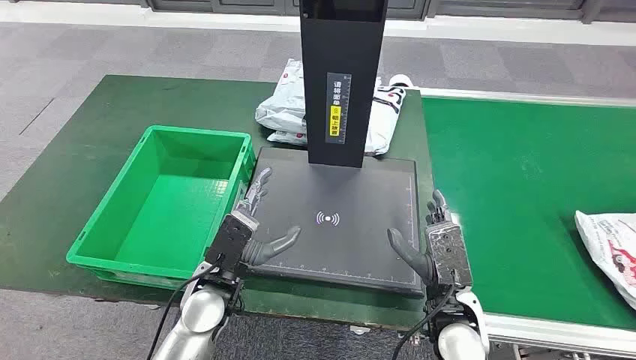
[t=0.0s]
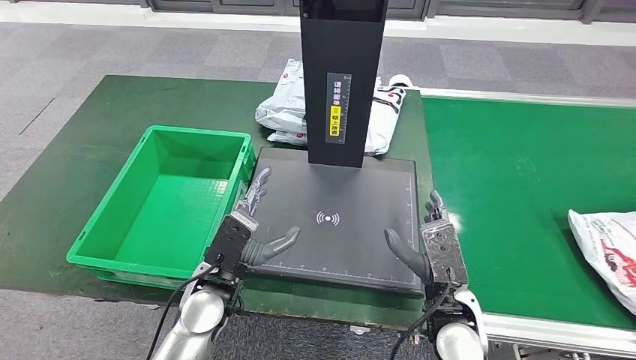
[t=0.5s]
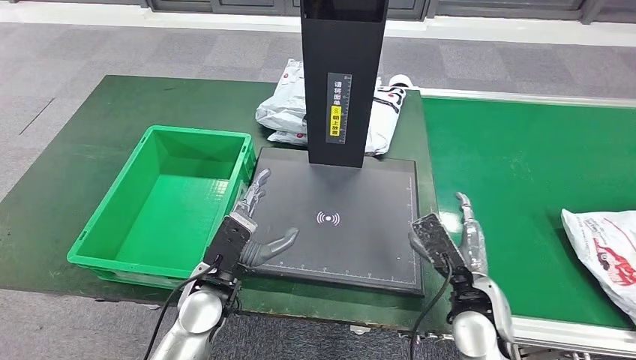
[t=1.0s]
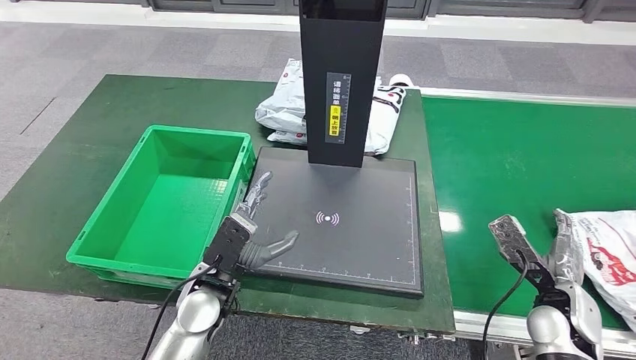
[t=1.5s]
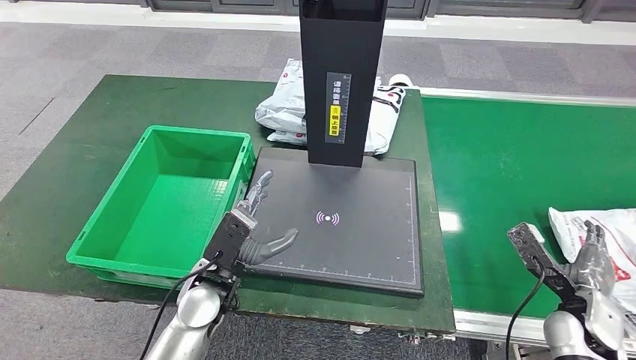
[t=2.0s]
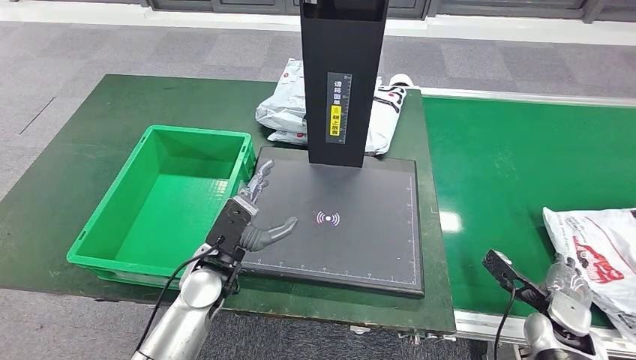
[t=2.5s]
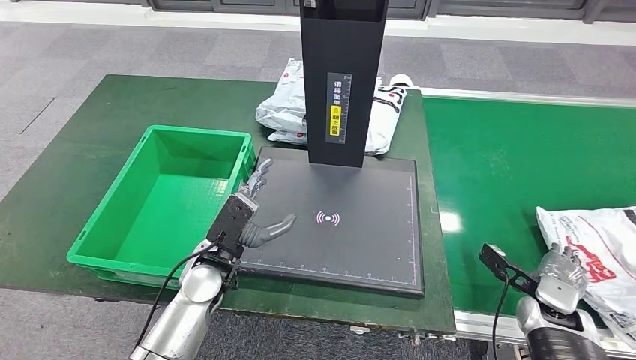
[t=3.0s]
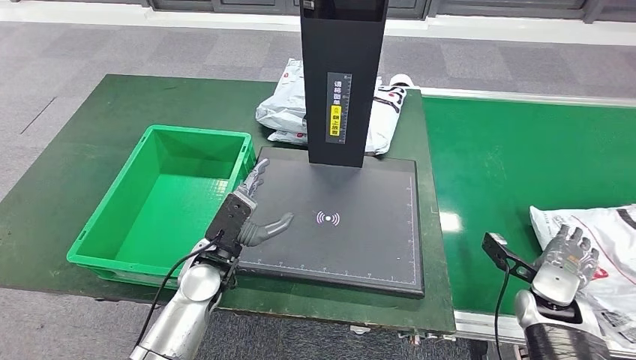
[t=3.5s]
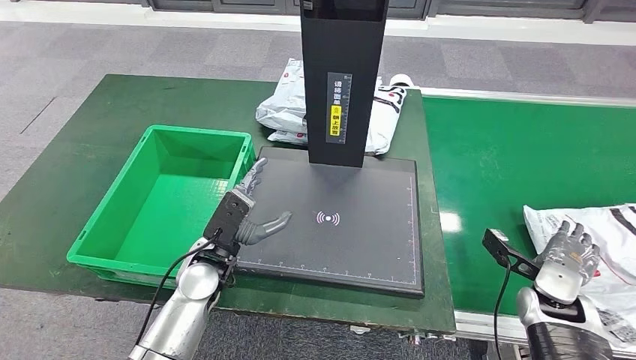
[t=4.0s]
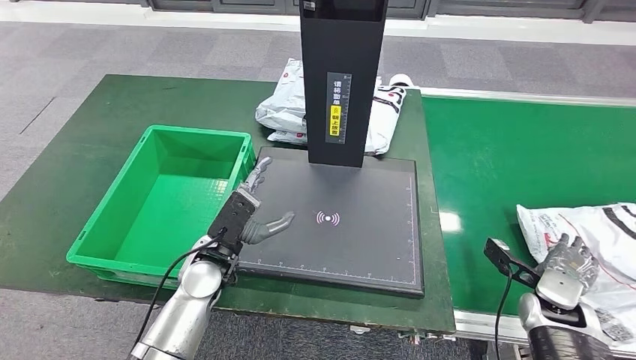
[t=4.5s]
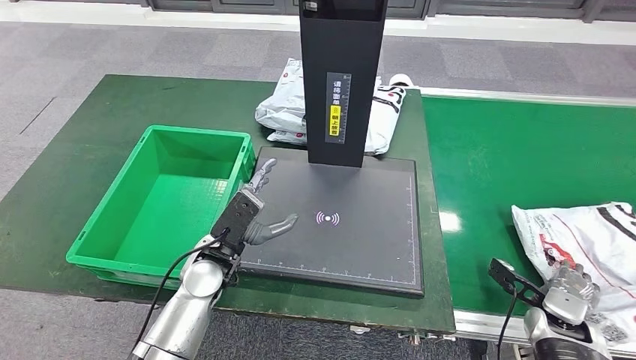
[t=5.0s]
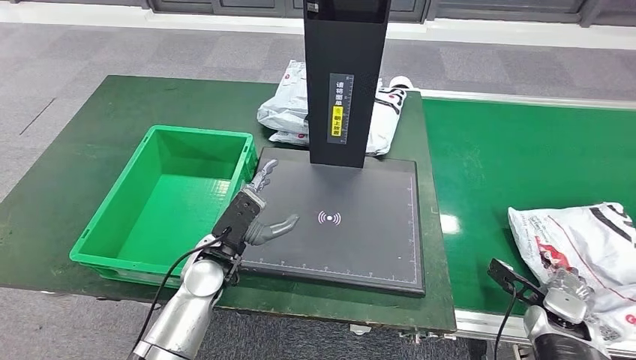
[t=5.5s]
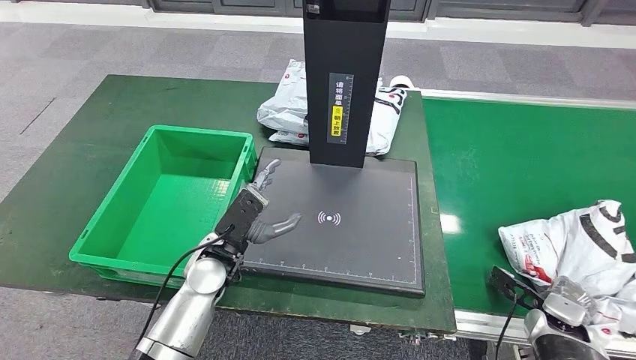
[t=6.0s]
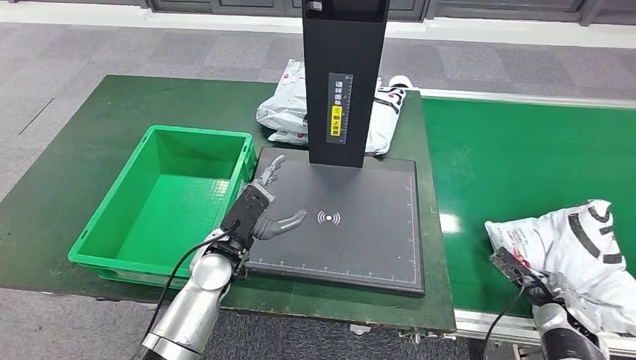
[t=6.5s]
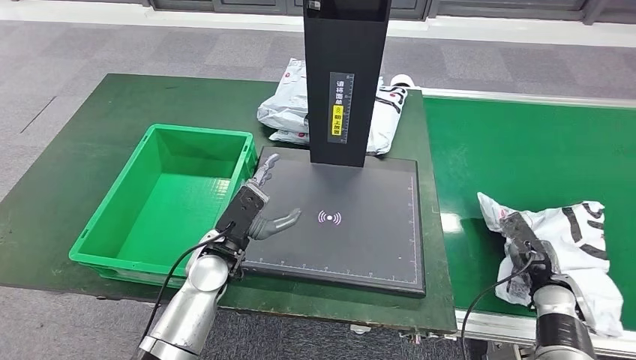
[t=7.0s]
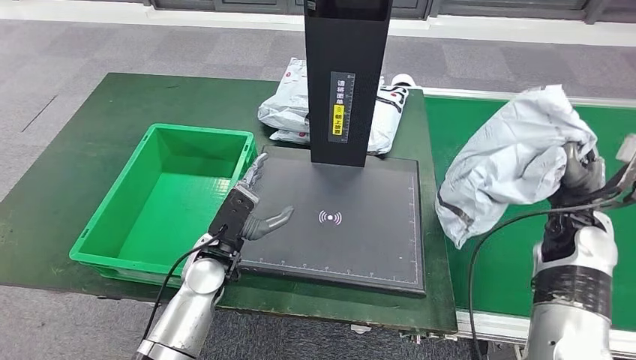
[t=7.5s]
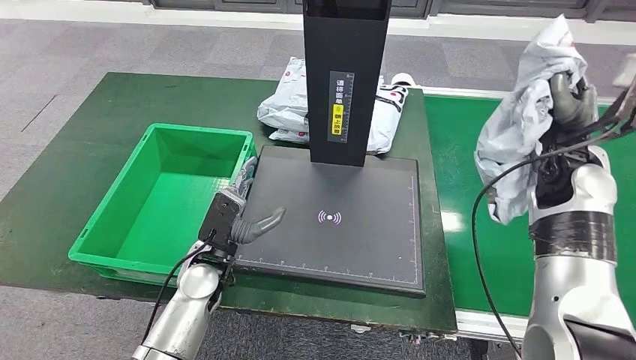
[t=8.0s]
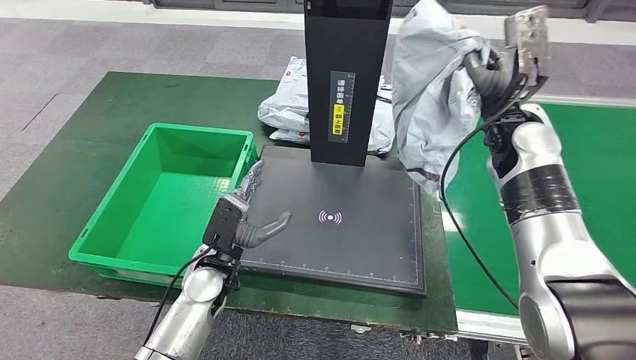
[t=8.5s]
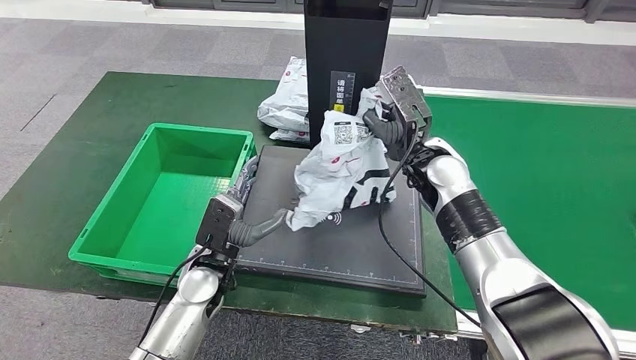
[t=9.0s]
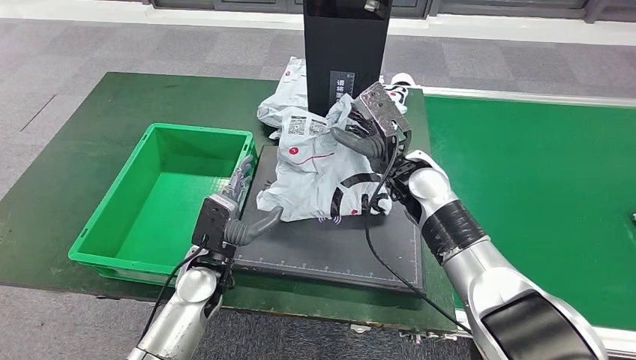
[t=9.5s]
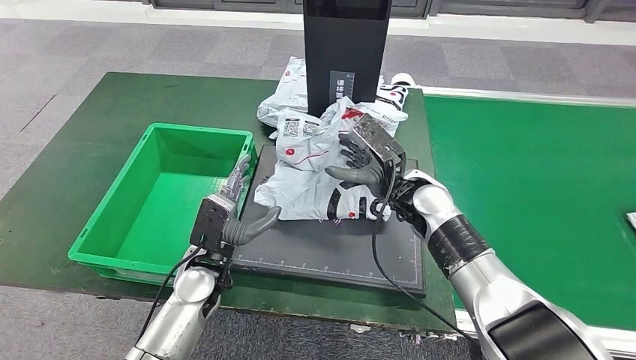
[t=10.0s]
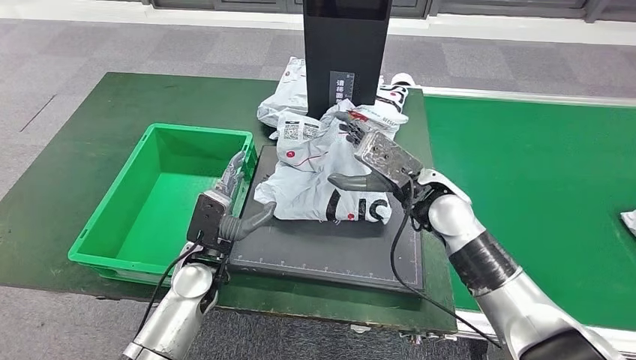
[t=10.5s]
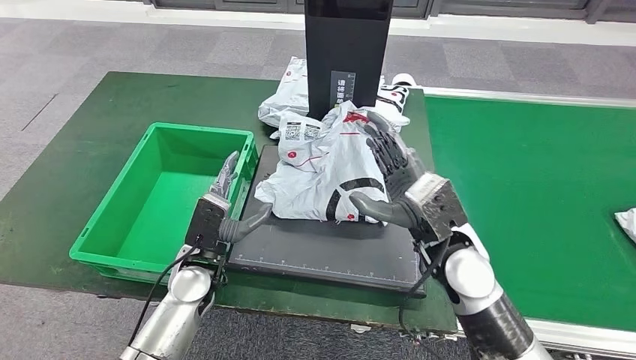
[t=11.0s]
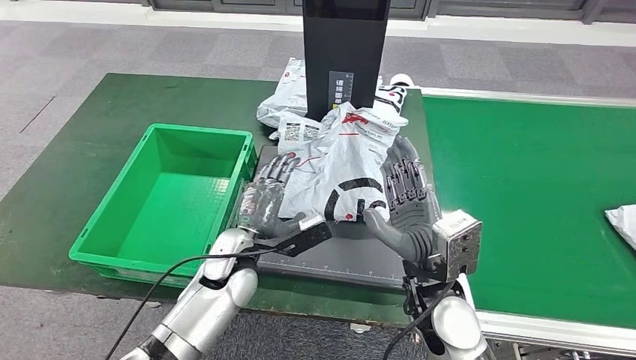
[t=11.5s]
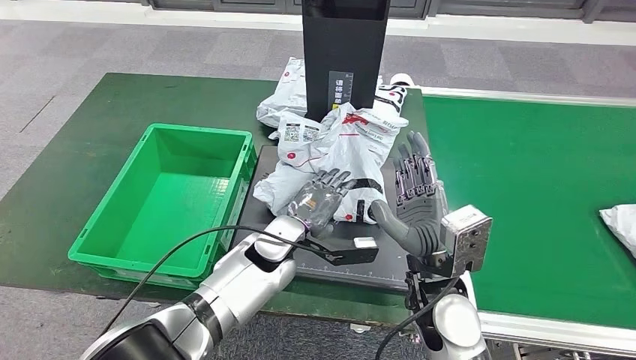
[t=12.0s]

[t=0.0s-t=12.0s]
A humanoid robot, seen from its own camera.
Step, t=0.0s to t=7.5s: Take the parcel off the conveyor belt.
Step, t=8.0s to t=11.5s: Place the parcel onto the inbound machine.
t=2.0s to t=4.0s: The right hand moves approximately 5 cm.
t=4.0s to t=6.0s: The right hand goes roughly 5 cm downward.

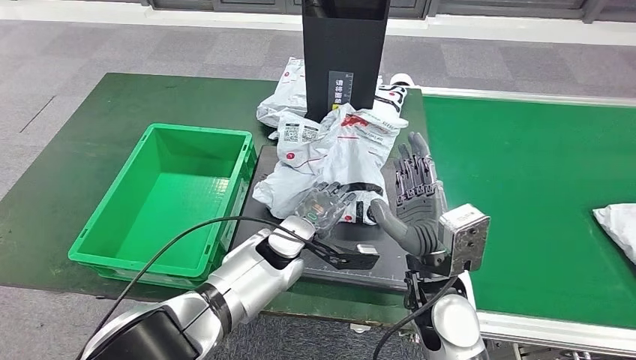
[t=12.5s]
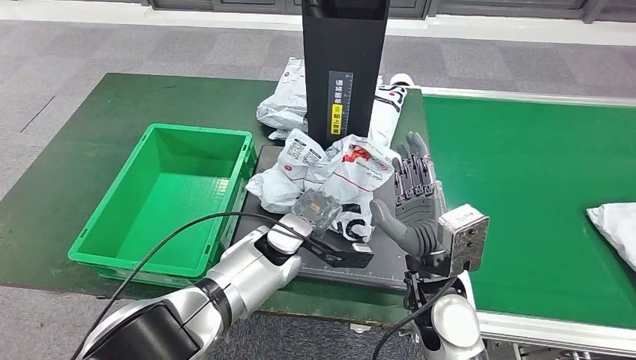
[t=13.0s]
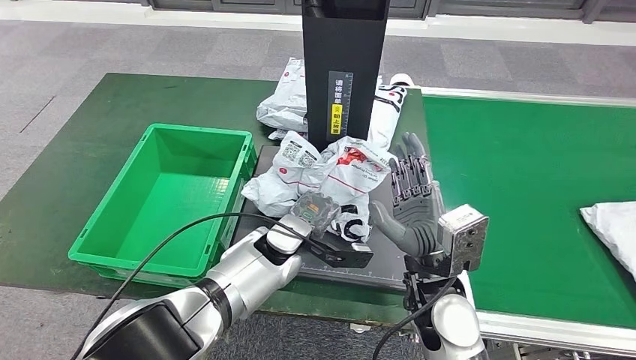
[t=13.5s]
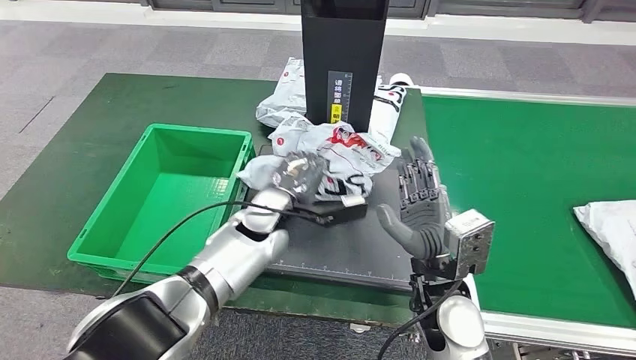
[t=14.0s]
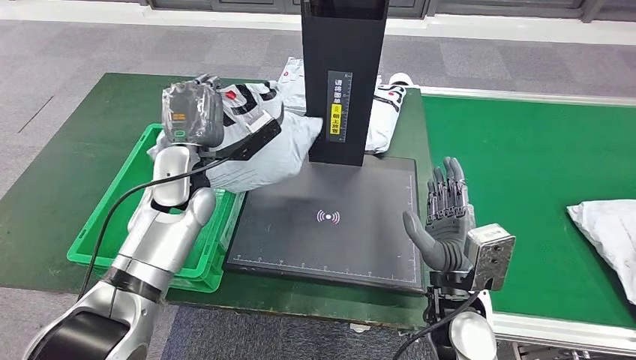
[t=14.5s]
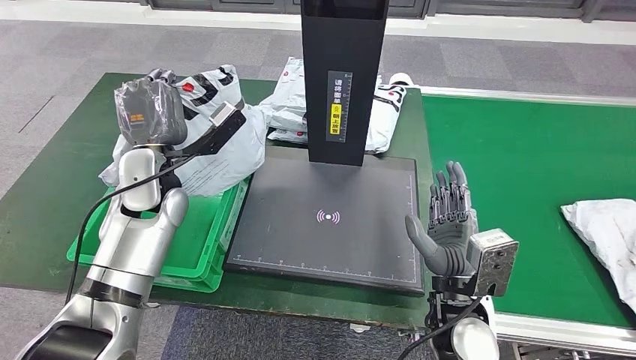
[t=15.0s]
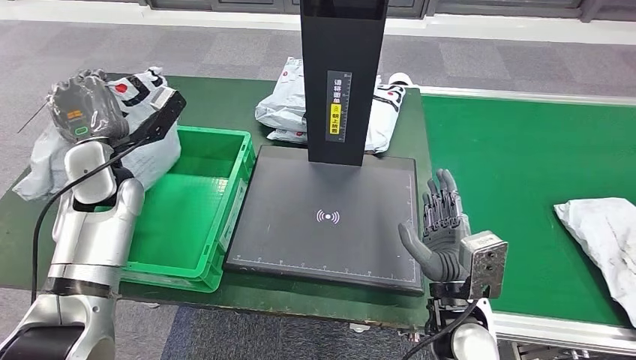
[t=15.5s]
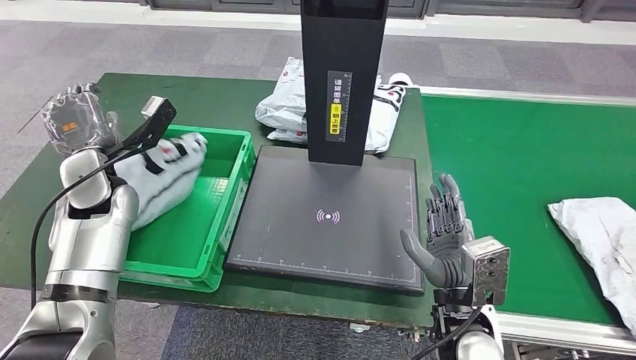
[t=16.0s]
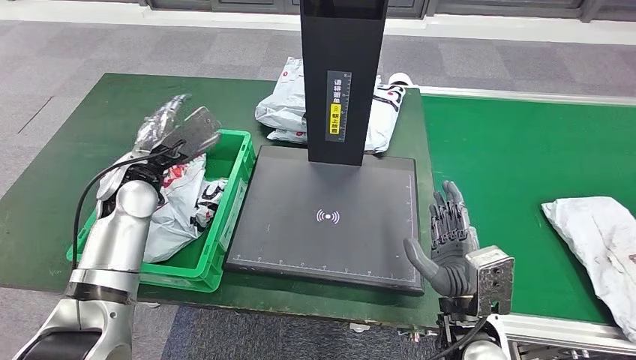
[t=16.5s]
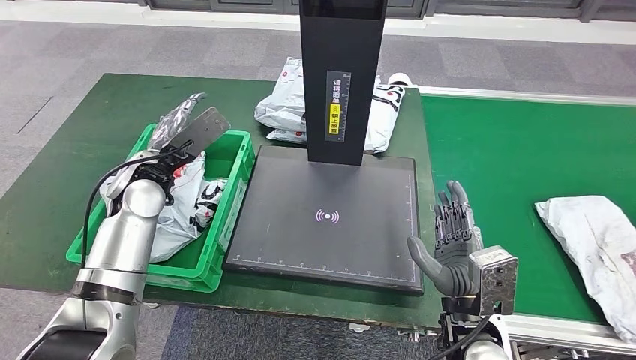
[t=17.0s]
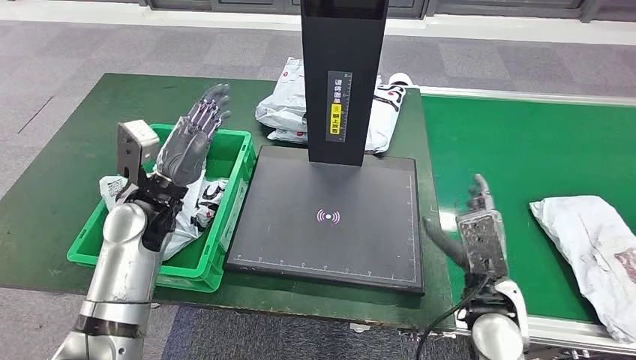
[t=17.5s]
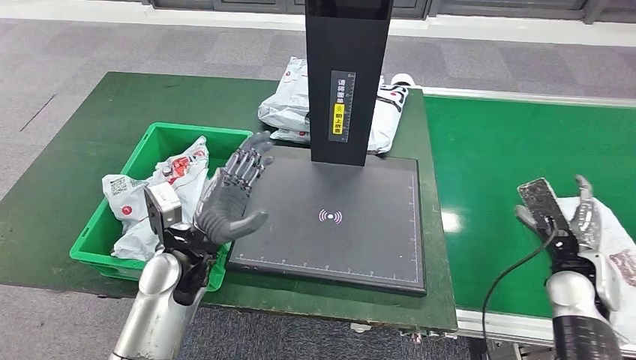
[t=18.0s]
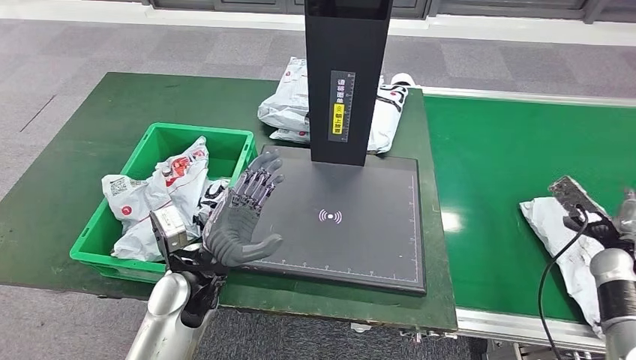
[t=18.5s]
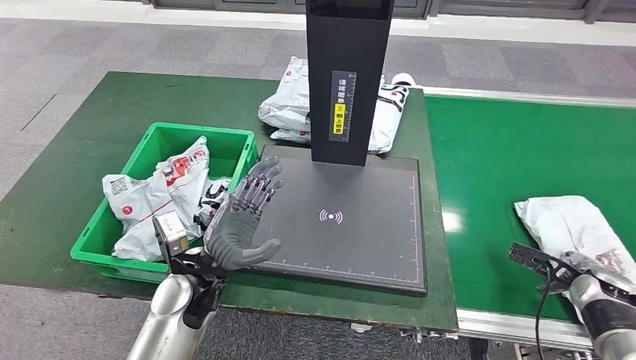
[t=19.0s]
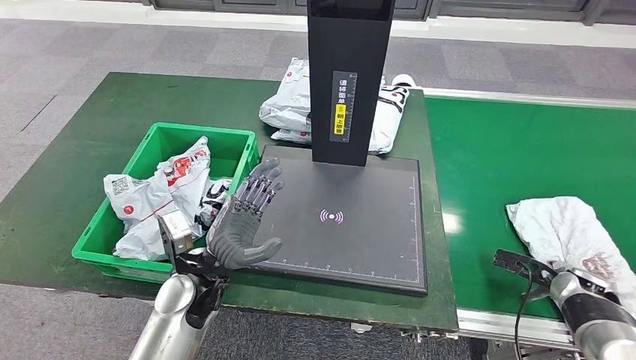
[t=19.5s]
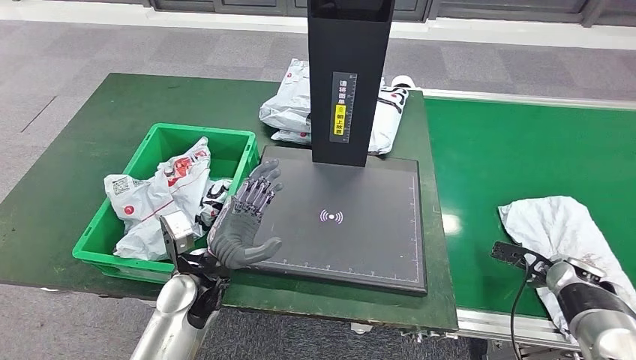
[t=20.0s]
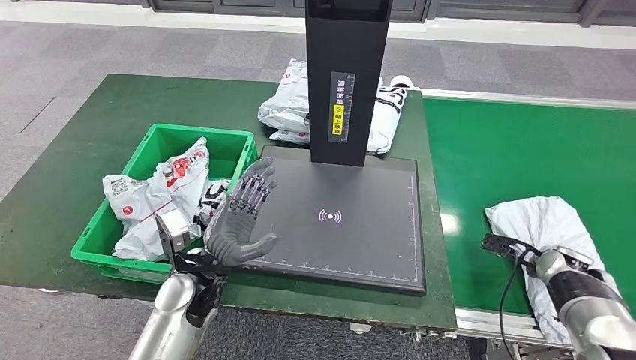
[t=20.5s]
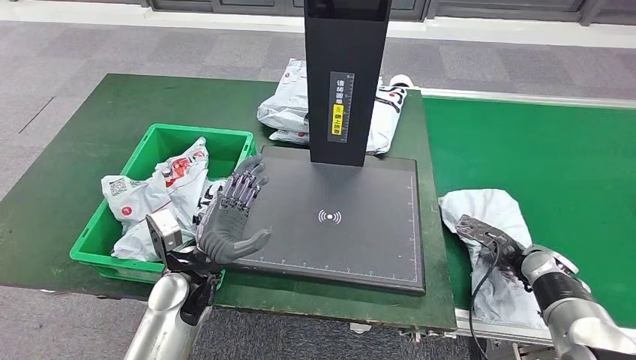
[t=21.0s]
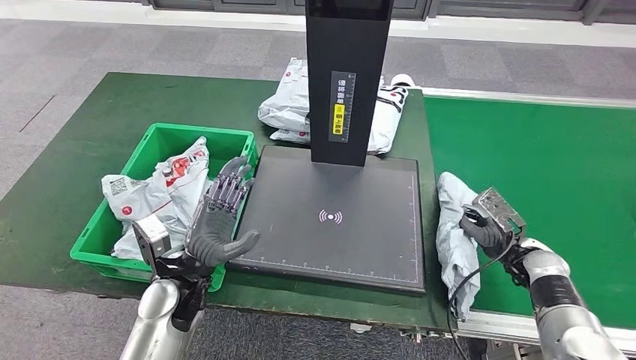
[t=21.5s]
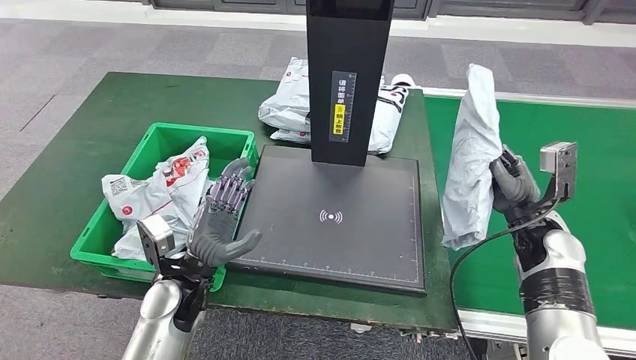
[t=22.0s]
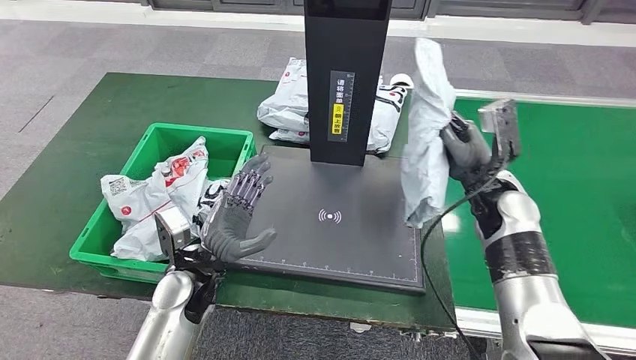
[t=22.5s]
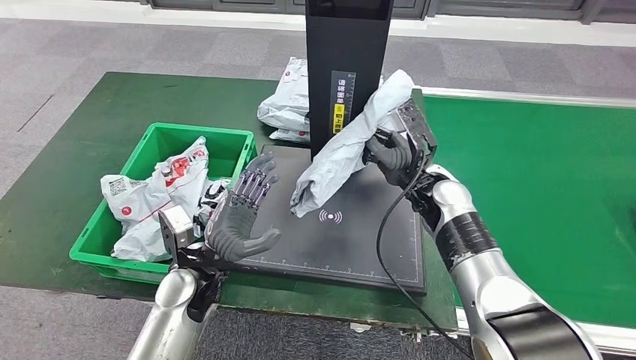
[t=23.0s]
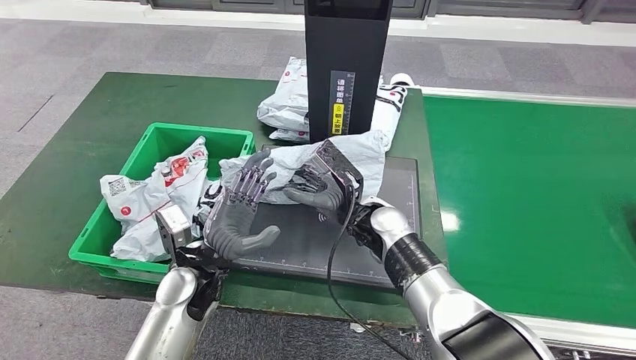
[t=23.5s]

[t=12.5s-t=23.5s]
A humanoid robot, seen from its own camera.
Step, t=12.5s to t=14.5s: Pick up the parcel from the inbound machine.
Step, t=15.0s to t=17.0s: Put the parcel inside the courier box.
Step, t=17.5s to t=22.5s: Pick up the parcel from the conveyor belt.
